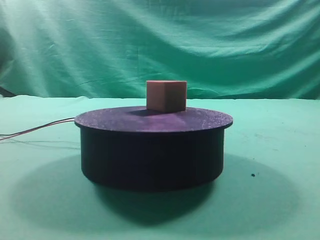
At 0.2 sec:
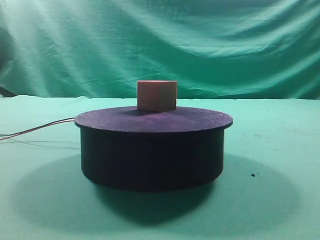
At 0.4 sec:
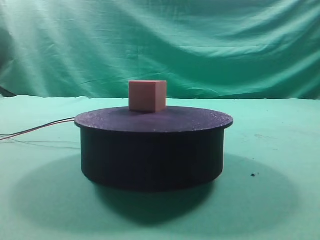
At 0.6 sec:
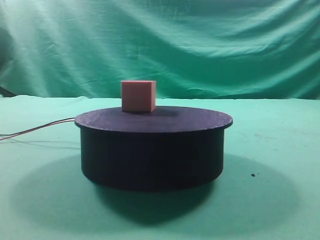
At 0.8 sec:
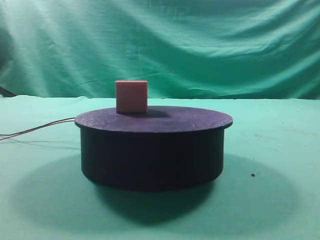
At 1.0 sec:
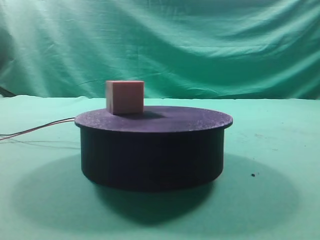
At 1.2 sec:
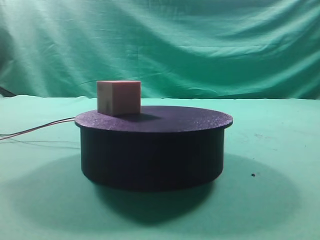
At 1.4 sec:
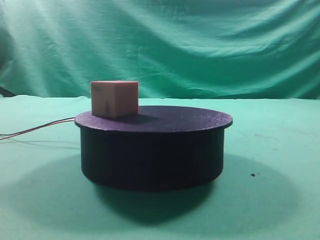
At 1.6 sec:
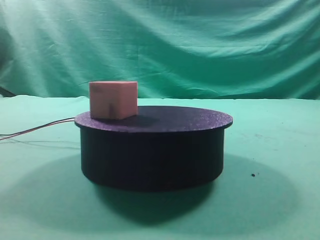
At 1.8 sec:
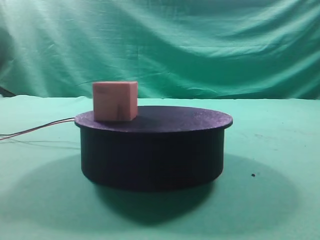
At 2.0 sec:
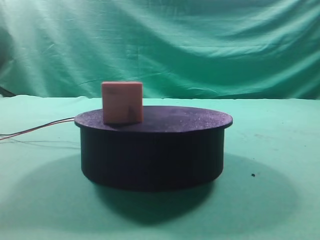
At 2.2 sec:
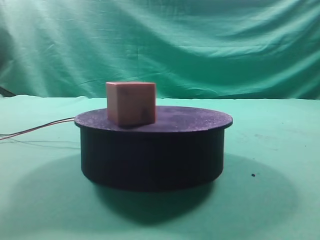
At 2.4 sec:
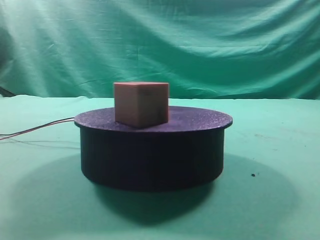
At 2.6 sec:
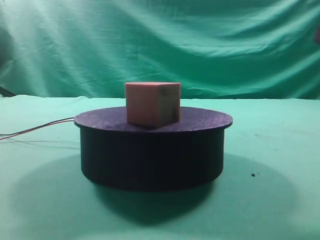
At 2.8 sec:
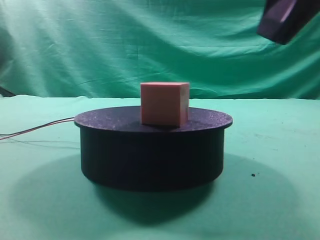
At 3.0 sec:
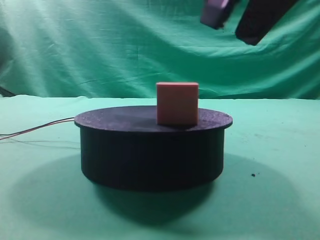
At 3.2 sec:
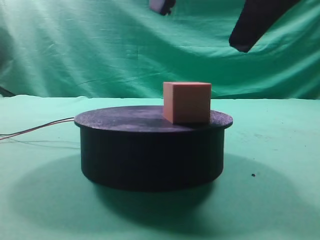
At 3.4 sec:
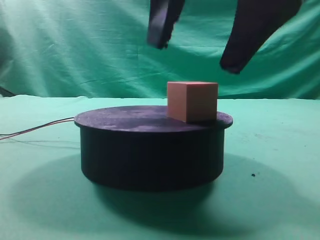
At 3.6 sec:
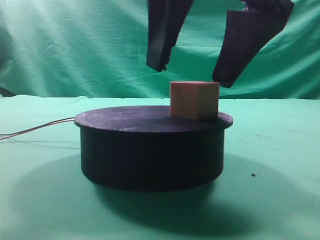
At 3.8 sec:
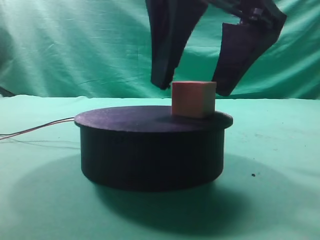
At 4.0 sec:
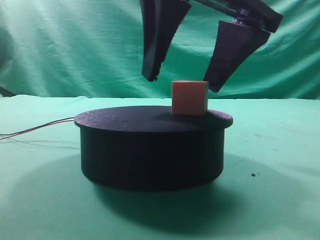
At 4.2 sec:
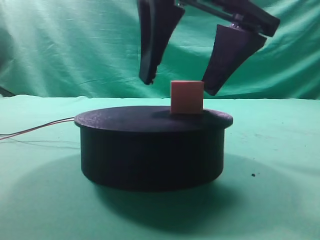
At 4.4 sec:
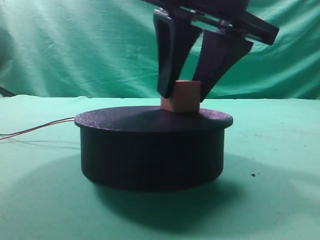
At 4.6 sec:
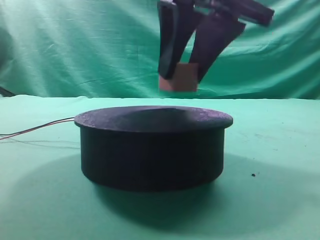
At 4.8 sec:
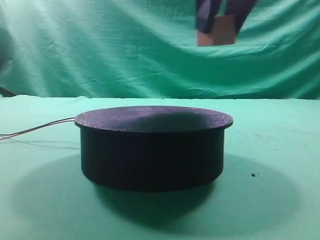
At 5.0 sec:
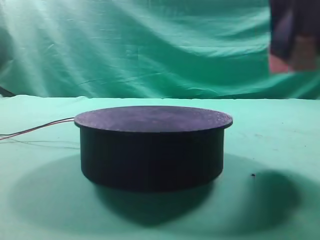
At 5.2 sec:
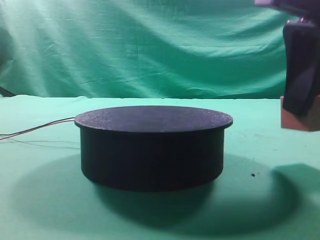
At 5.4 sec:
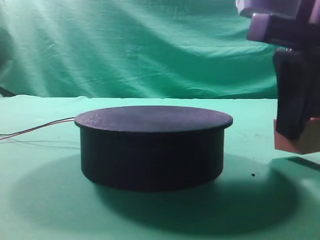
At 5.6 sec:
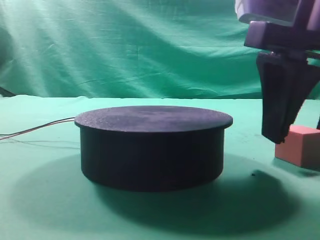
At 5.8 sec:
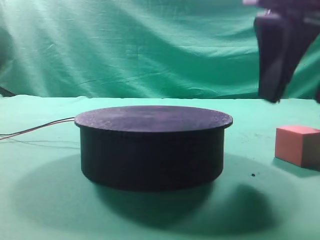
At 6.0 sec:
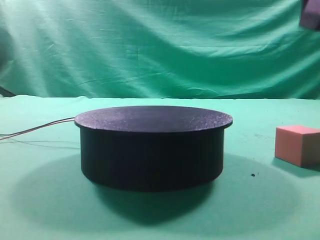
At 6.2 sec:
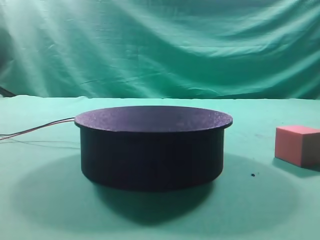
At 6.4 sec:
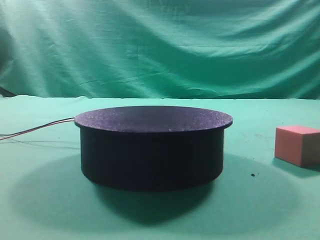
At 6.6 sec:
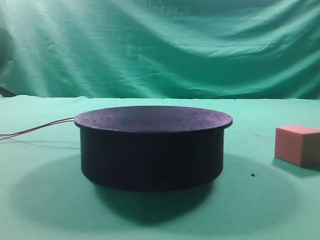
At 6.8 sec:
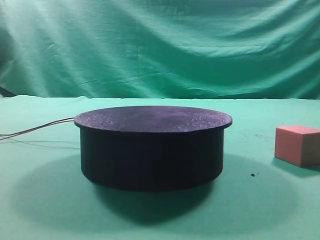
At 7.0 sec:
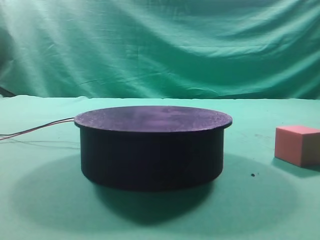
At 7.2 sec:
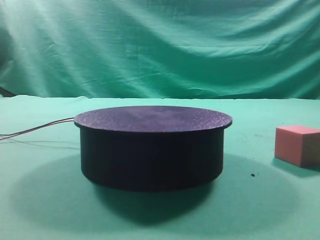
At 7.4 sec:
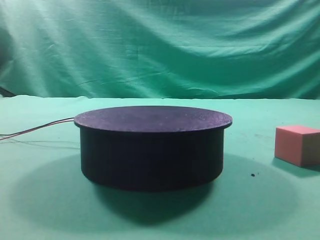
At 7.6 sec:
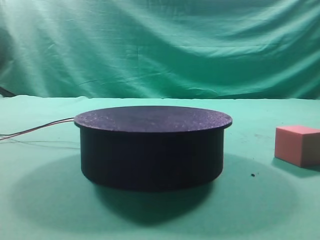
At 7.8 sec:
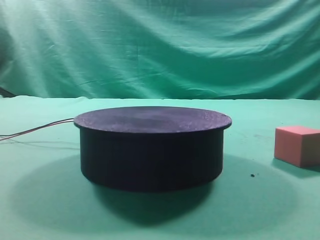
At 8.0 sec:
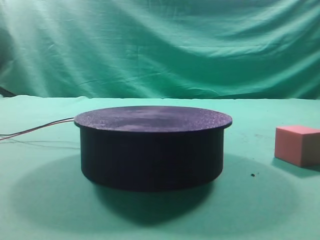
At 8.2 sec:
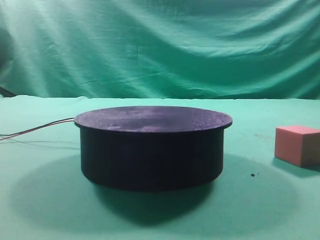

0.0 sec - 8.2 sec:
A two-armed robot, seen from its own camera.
Task of the whole recording: grasp the rotating cube-shaped block on the turntable and place it on the table.
Step, 0.0 sec - 4.6 sec: Grasp the rotating cube-shaped block on the turntable.
Step, 4.8 sec - 5.6 sec: Place the cube on the desk.

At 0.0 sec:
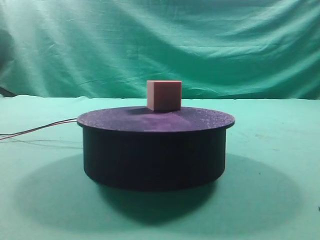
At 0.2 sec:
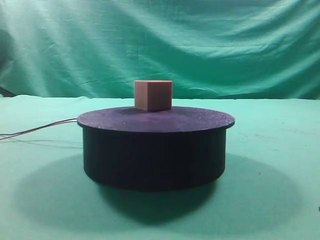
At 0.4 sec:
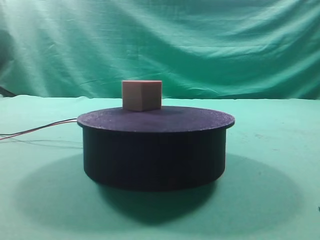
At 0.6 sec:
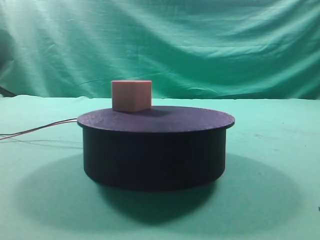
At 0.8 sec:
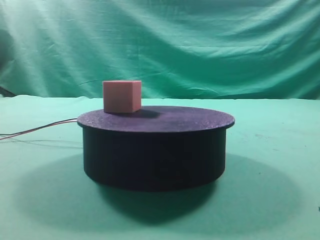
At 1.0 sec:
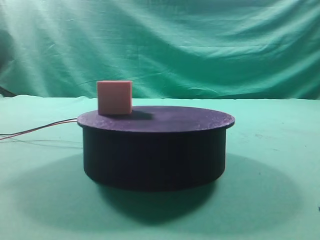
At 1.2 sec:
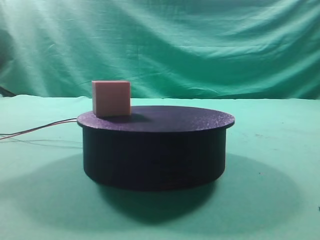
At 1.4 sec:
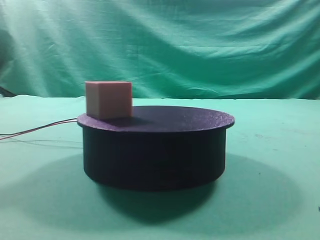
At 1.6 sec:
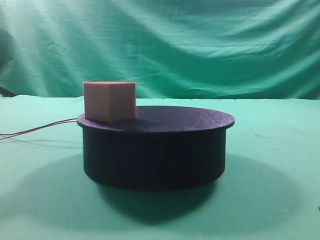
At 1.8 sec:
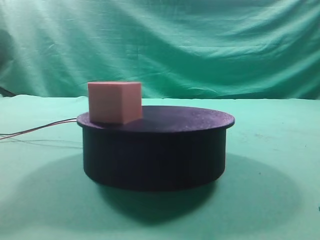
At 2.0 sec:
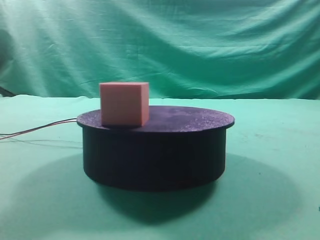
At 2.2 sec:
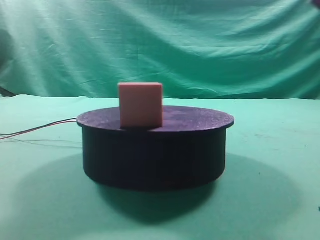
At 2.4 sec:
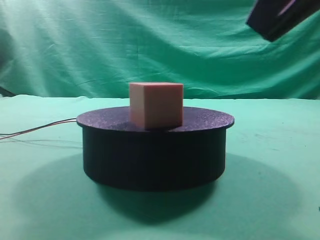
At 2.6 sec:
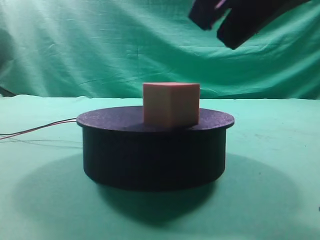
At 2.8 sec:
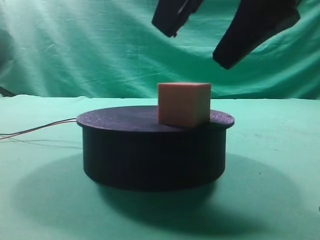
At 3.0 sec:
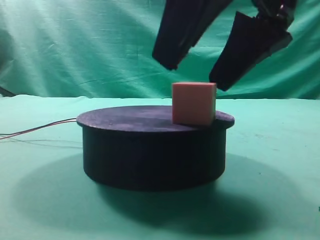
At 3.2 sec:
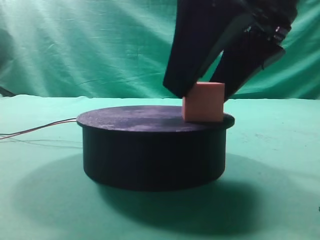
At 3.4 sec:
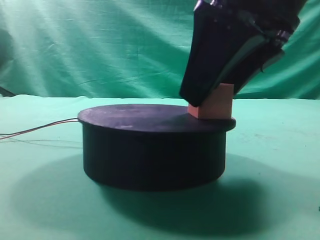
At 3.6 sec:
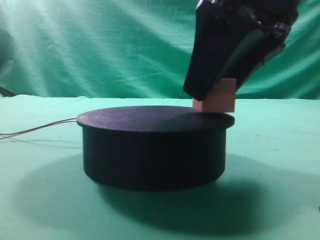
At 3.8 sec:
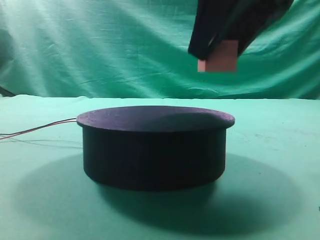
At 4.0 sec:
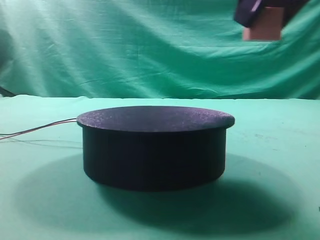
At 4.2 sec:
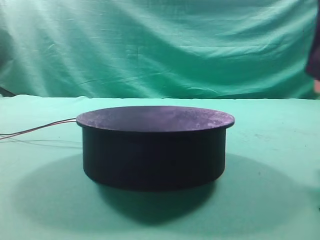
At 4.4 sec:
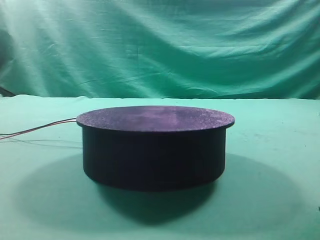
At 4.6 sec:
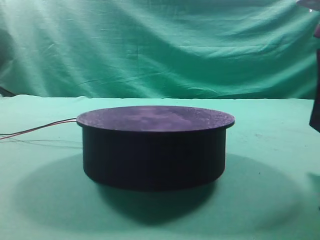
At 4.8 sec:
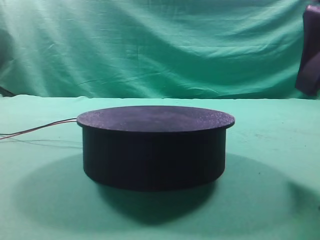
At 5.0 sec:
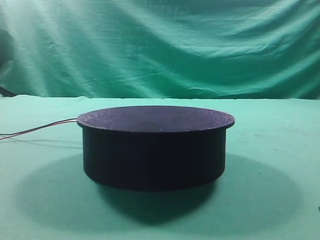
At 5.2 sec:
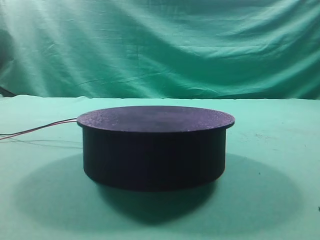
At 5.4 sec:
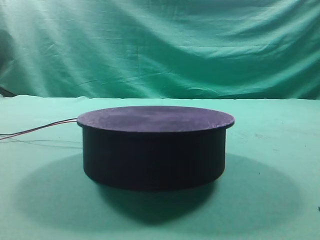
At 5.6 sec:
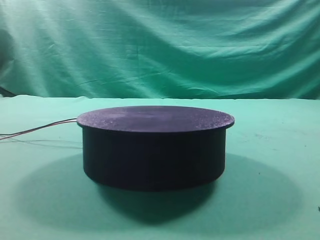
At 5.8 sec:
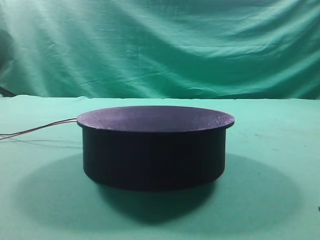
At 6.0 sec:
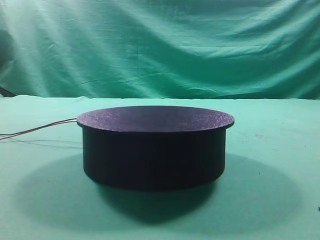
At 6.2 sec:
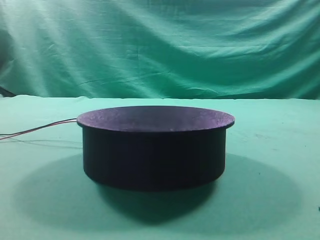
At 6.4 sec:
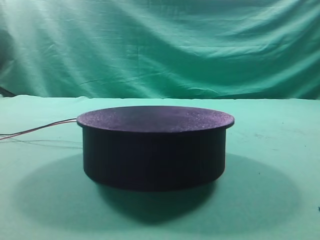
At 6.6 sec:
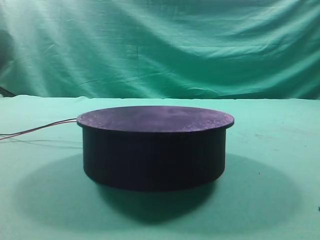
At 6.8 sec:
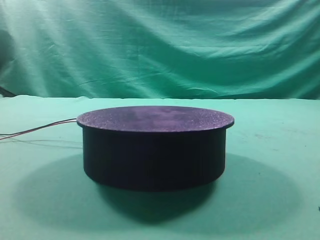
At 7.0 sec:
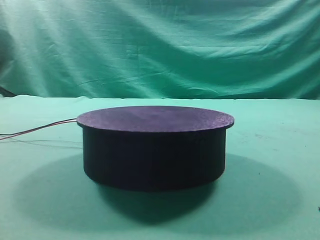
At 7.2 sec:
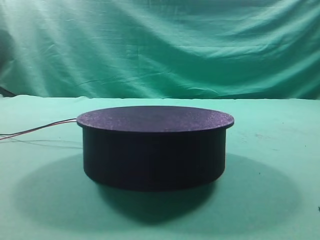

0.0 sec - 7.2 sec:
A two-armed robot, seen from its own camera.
Task of the whole recording: grasp the rotating cube-shaped block on the turntable and place it on the table.
Step, 0.0 sec - 3.6 sec: Grasp the rotating cube-shaped block on the turntable.
Step, 3.8 sec - 4.6 sec: Place the cube on the desk.

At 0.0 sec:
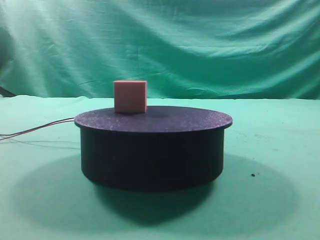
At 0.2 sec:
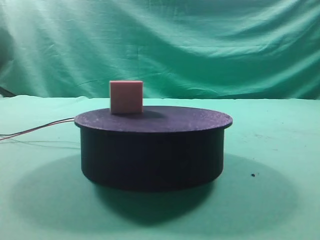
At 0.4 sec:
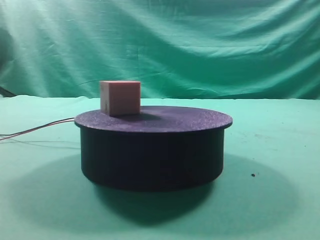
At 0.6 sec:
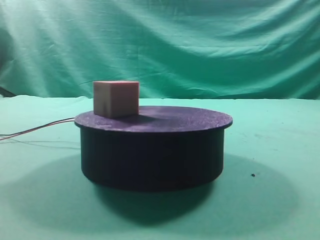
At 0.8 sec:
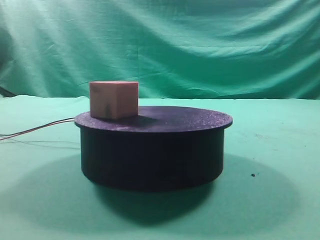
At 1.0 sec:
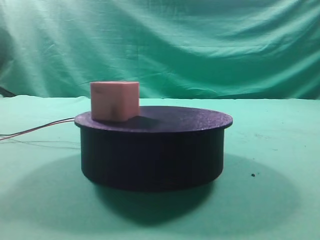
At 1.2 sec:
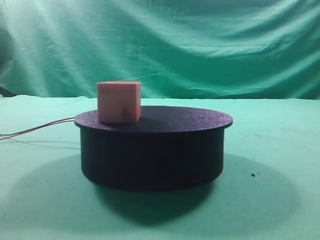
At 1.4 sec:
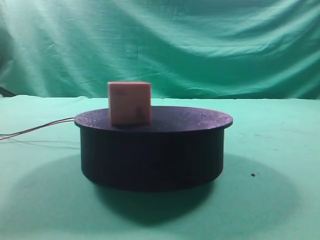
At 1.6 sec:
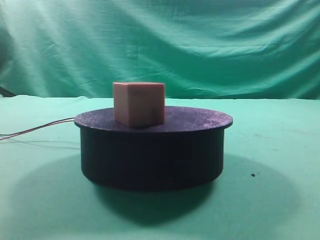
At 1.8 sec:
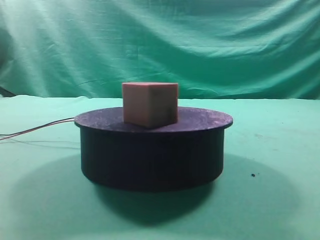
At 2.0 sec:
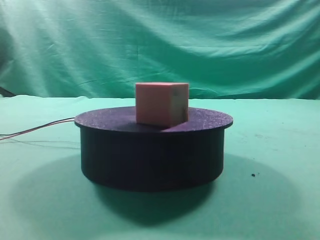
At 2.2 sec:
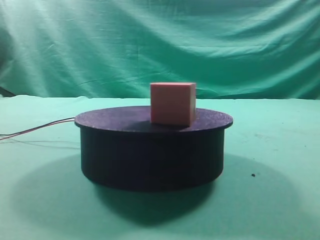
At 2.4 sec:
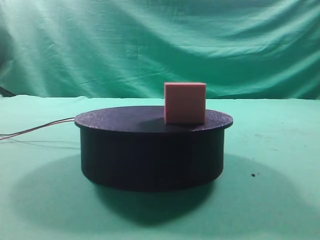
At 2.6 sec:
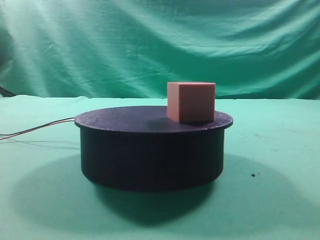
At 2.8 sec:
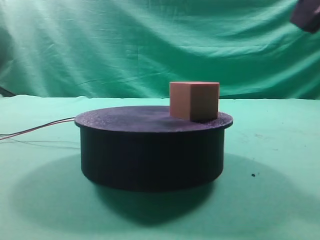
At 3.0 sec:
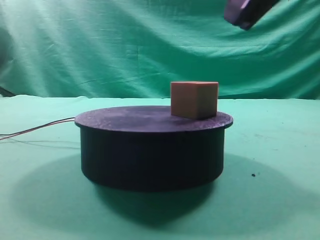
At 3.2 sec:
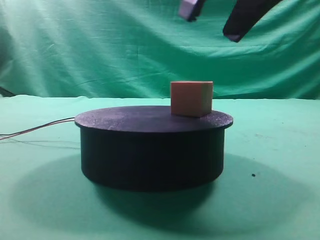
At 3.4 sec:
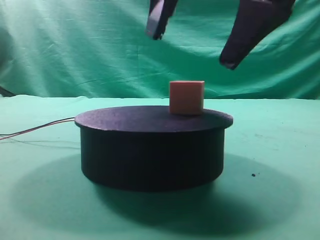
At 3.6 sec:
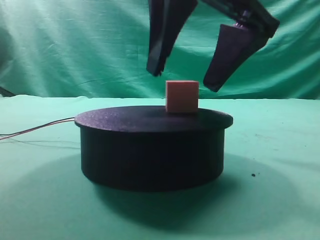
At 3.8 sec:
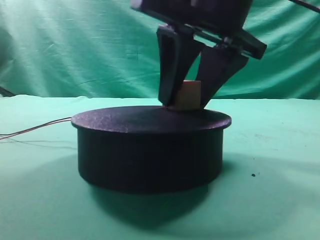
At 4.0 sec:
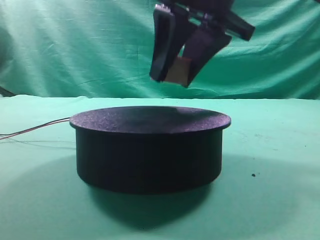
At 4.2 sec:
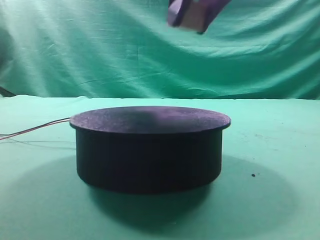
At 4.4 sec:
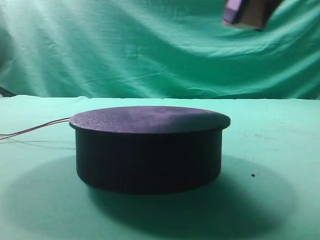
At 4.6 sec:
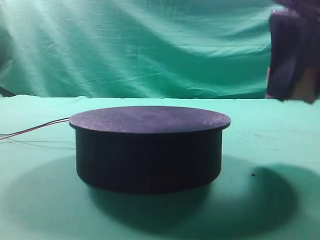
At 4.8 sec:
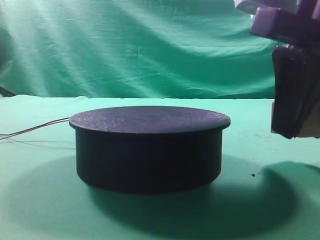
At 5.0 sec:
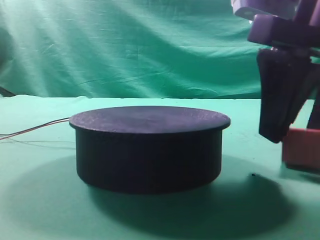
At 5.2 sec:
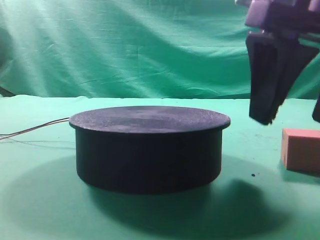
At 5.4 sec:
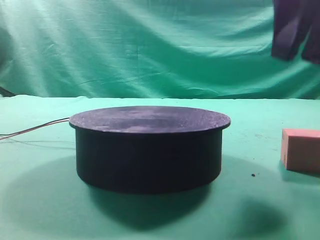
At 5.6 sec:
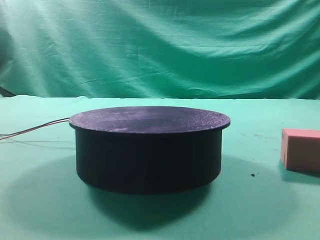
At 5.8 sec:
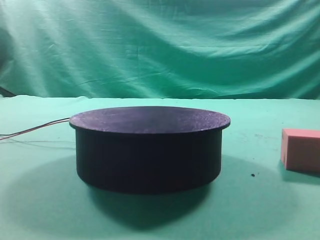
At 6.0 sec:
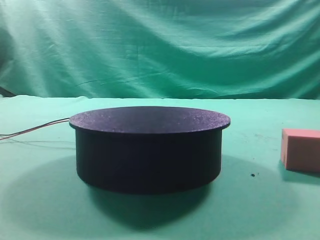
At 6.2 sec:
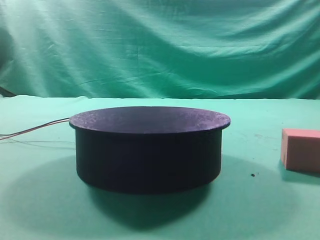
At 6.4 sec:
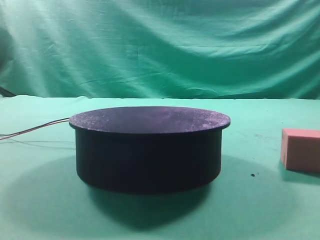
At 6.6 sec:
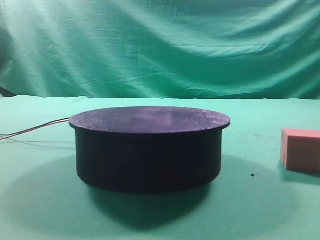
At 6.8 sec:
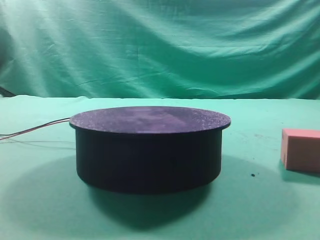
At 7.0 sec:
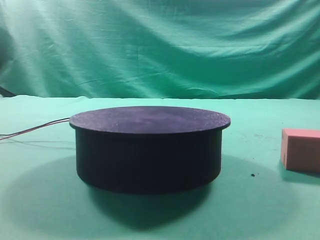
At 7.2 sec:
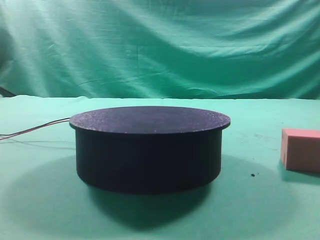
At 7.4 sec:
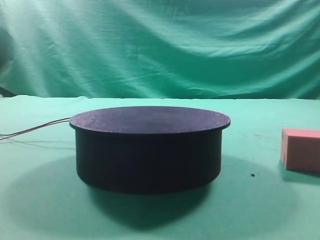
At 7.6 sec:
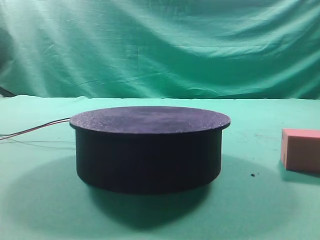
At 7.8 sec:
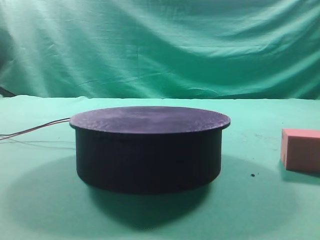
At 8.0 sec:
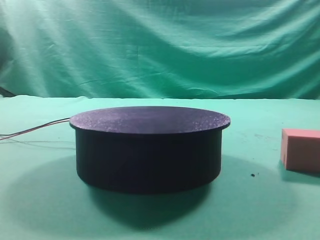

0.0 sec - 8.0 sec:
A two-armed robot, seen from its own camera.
Task of the whole recording: grasp the rotating cube-shaped block on the turntable and place it on the table.
Step, 0.0 sec - 3.2 sec: Grasp the rotating cube-shaped block on the turntable.
Step, 3.4 sec - 4.2 sec: Place the cube on the desk.
